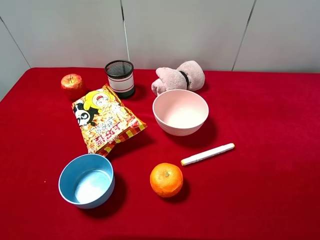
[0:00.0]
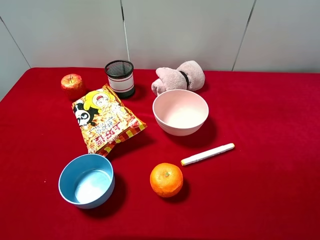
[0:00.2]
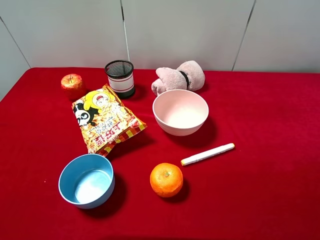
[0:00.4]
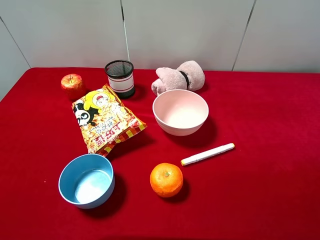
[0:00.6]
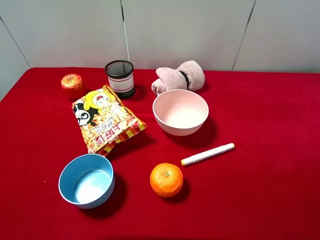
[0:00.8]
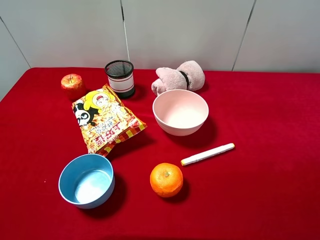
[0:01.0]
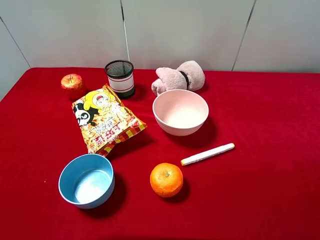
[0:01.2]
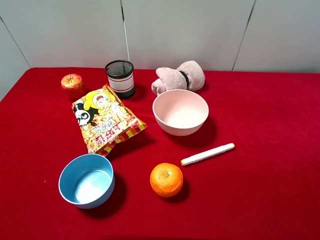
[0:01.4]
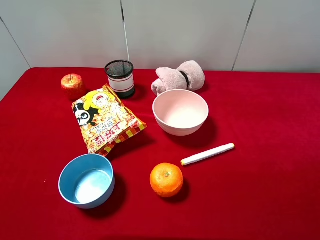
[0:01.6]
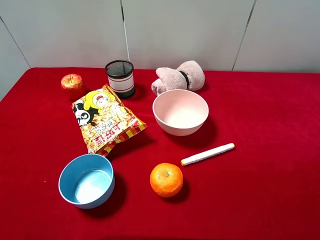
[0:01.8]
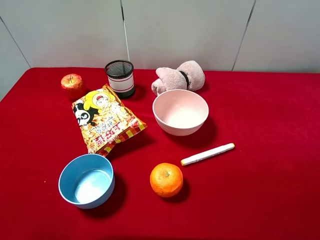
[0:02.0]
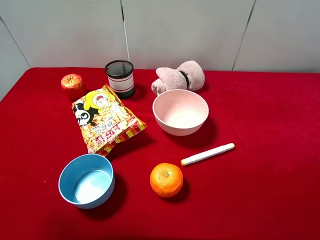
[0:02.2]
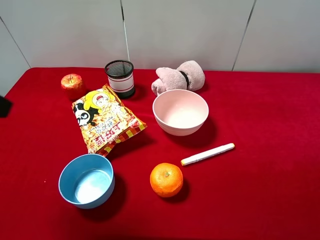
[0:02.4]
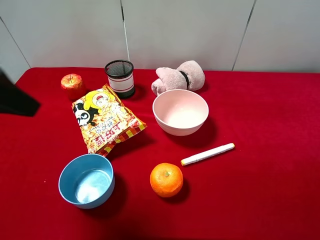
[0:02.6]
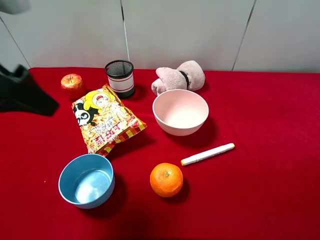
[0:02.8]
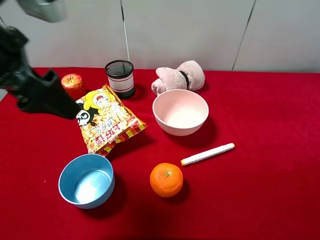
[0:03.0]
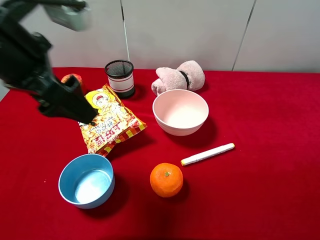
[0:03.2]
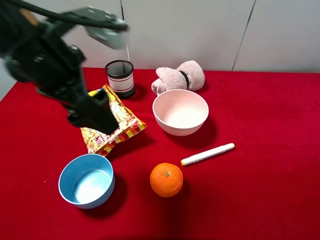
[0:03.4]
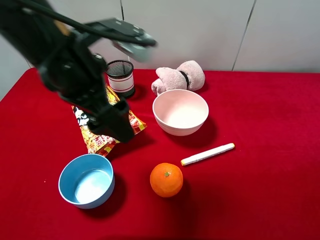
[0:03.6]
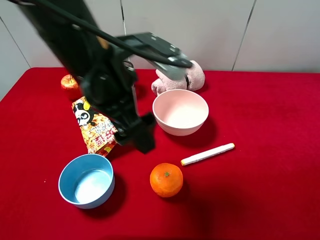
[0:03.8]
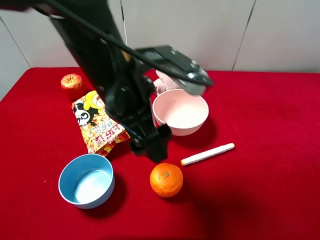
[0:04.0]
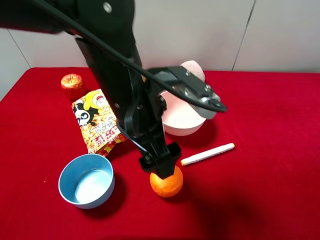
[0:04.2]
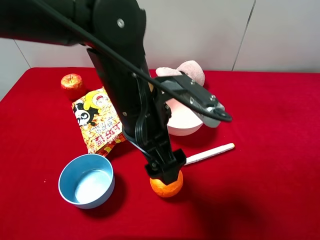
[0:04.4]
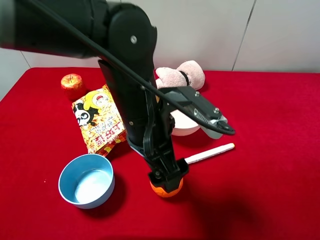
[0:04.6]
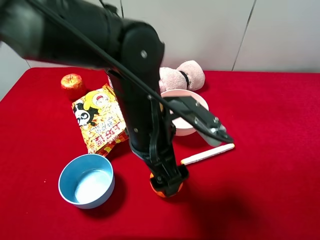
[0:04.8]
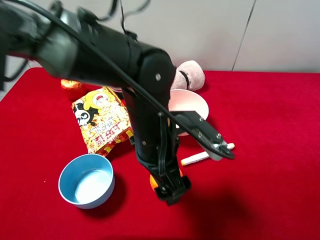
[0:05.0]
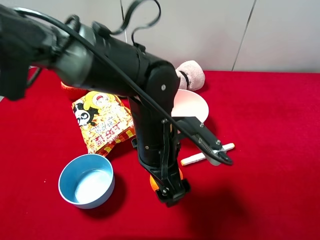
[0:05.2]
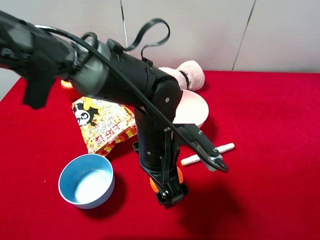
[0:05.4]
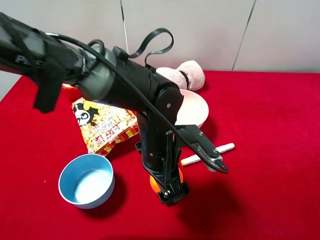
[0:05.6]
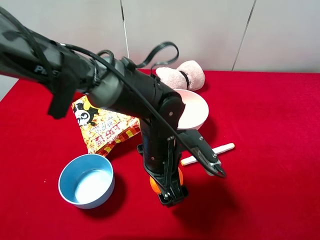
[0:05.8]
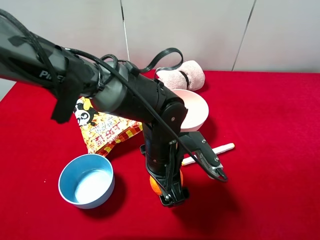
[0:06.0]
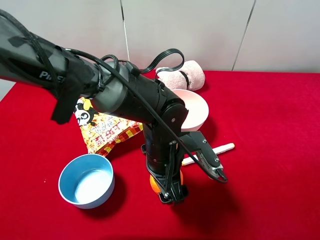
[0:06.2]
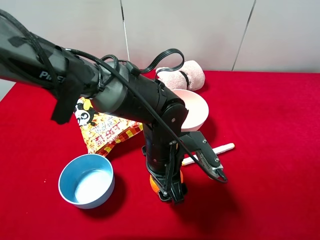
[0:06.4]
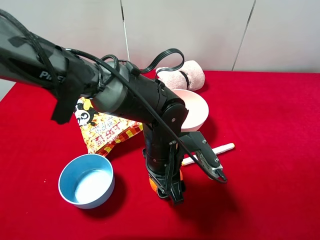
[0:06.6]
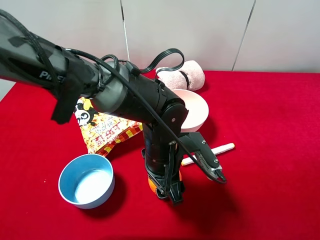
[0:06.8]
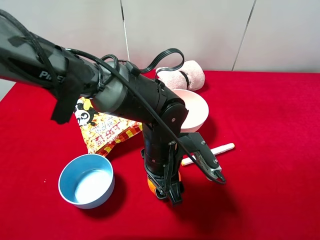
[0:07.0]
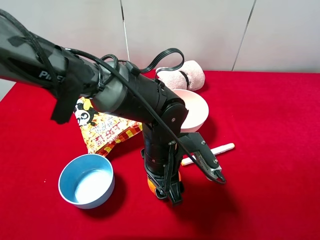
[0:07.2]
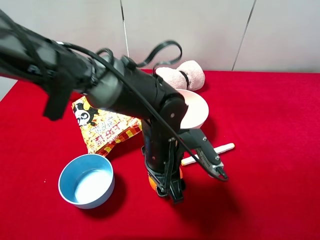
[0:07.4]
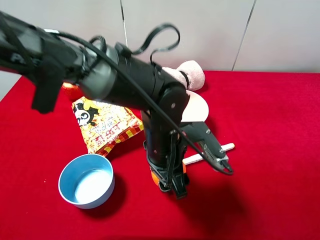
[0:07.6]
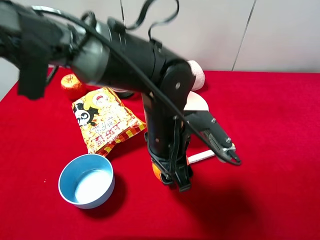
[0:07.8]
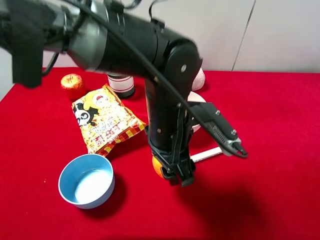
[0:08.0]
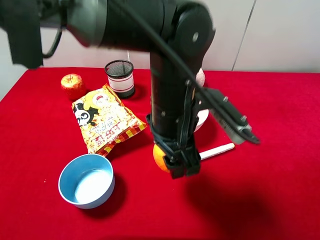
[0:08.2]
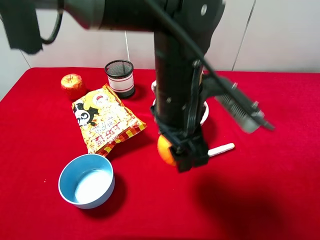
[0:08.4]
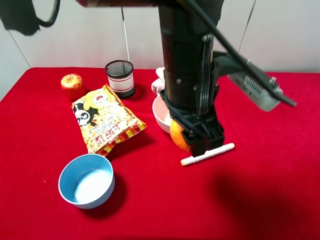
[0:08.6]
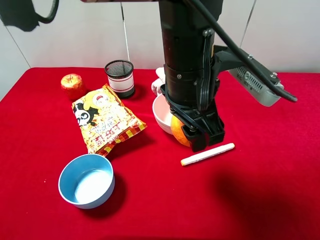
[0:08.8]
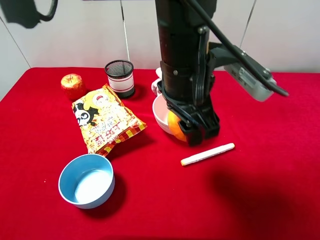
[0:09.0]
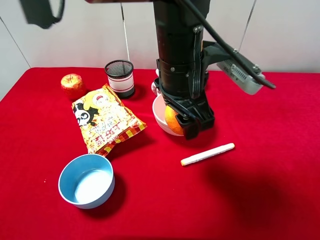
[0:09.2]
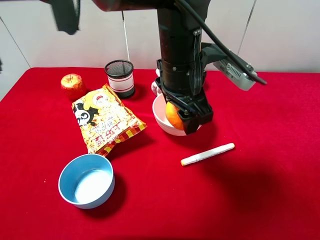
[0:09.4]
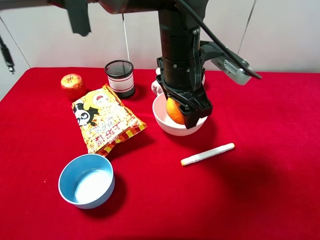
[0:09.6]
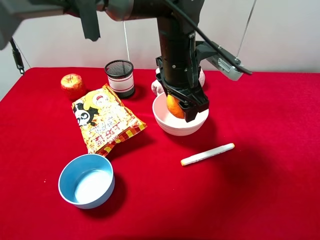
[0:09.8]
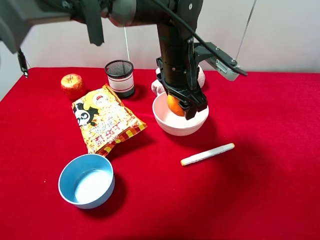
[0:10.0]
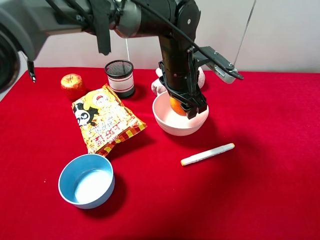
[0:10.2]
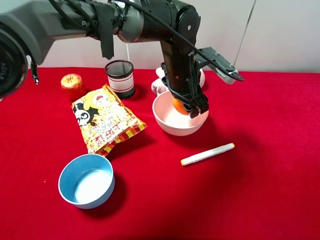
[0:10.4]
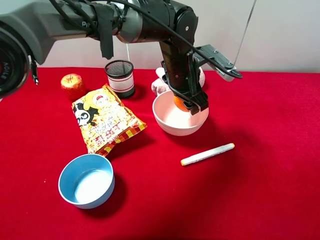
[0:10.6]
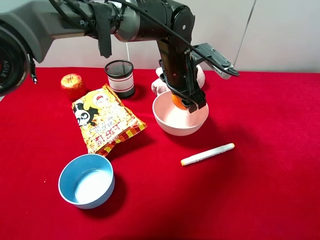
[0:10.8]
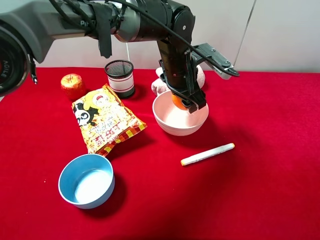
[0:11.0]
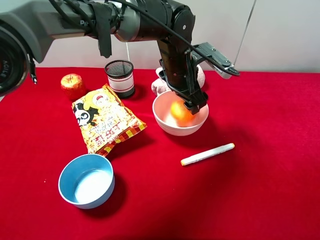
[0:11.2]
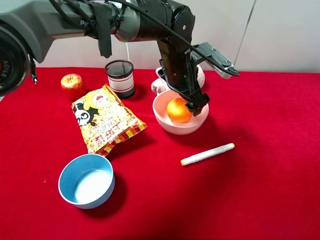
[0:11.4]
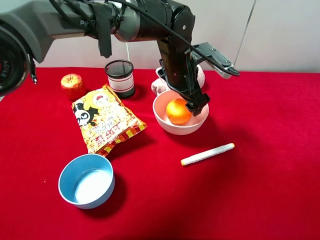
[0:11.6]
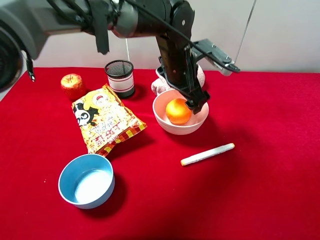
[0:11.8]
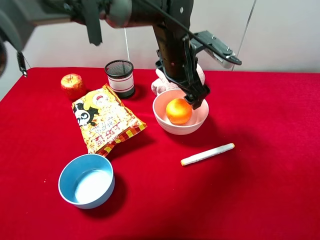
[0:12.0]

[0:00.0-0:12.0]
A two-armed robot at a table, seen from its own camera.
Task of the whole recording: pick up an item with a gripper and place it in a random container on the desktop.
0:01.6 to 0:03.0: The left gripper shifts about 20 cm forward and to the right.
0:03.0 to 0:04.4: The left gripper is displaced to the right and downward by about 20 cm.
0:04.4 to 0:06.0: The left gripper is displaced downward by approximately 10 cm.
0:06.0 to 0:07.6: The left gripper closes its fingers.
0:07.6 to 0:09.0: The left gripper travels upward by roughly 15 cm.
0:09.0 to 0:10.4: The left gripper goes roughly 15 cm forward and downward.
0:10.4 to 0:12.0: The left gripper opens up.

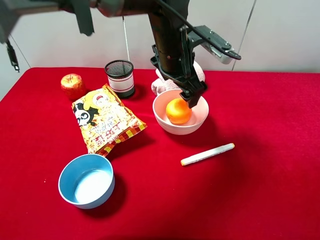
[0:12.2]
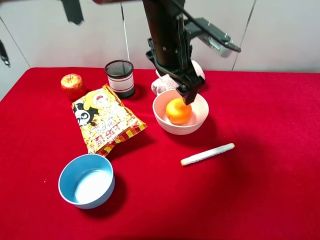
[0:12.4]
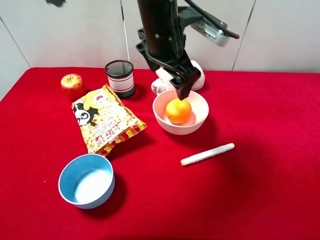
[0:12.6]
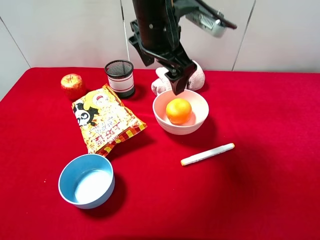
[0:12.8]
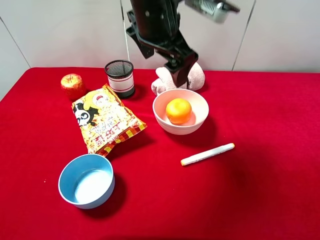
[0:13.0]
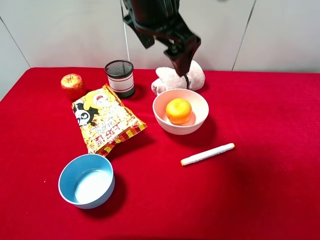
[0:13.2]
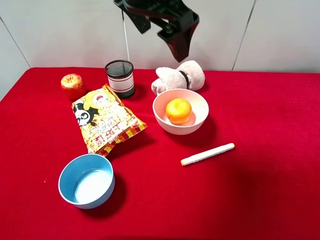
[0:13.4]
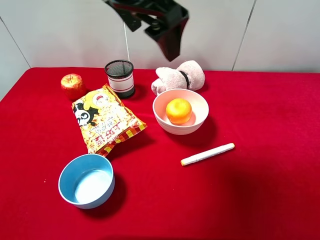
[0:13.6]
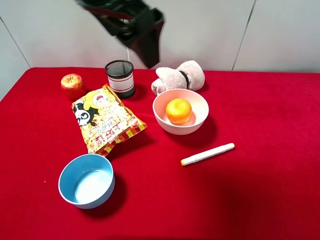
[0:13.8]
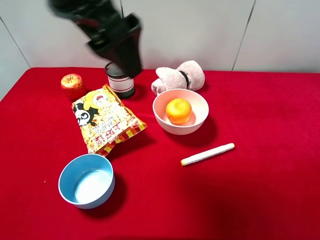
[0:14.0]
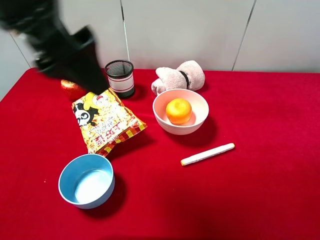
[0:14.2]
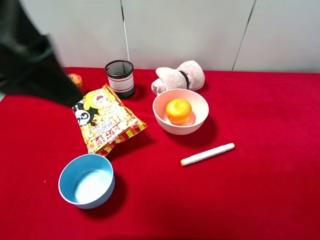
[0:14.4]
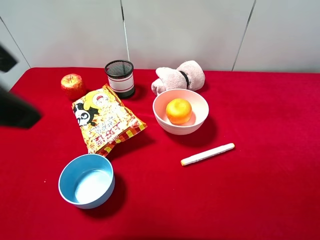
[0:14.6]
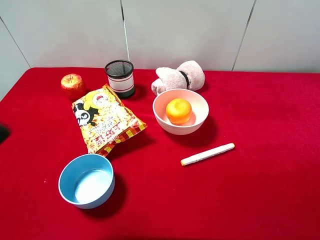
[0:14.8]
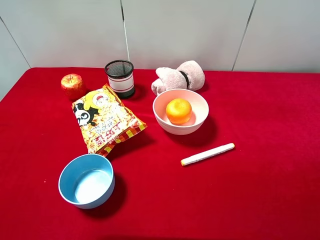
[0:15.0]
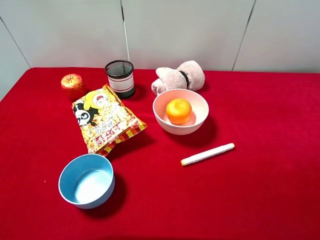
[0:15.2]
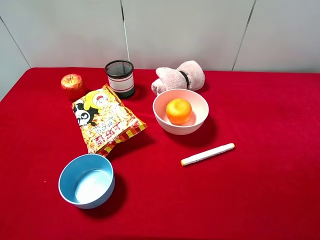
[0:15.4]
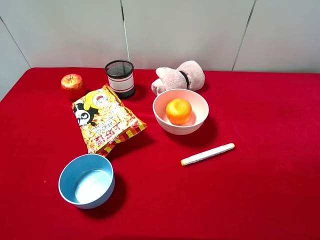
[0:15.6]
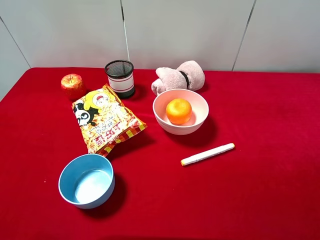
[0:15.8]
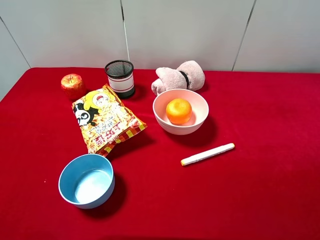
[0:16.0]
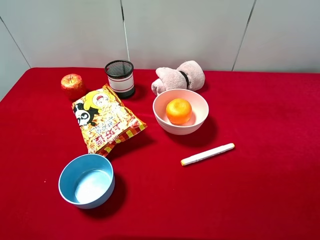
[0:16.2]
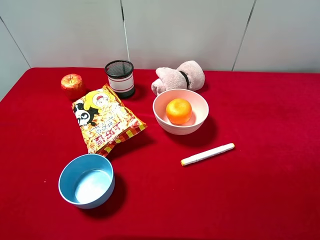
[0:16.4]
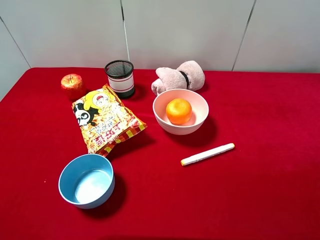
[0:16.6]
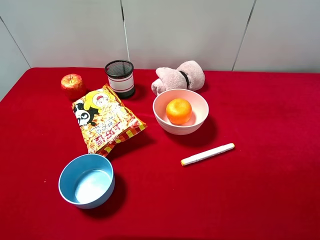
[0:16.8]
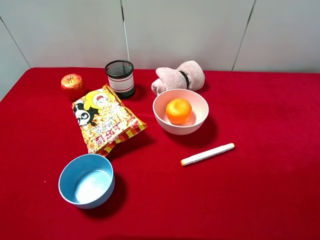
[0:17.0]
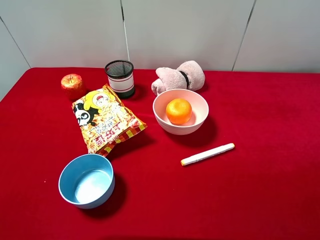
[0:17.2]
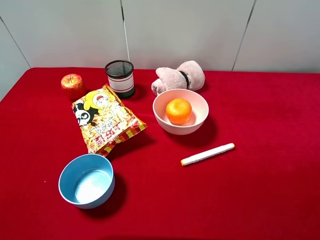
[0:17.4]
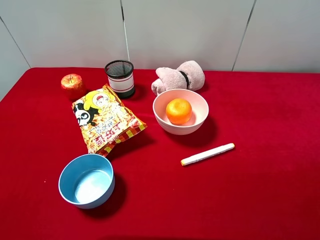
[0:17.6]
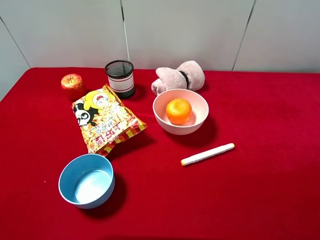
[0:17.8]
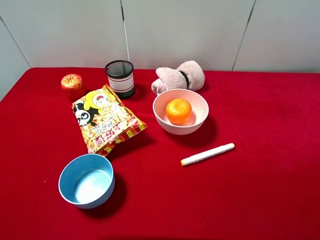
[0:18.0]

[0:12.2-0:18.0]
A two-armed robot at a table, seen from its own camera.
Task of the whole recording: pick up an item with a gripper and place it in a random container on the desktop.
0:12.2 to 0:13.6: The left gripper moves upward, to the left and backward, some 20 cm.
0:13.6 to 0:15.0: The left gripper is displaced backward and to the left by about 30 cm.
0:16.6 to 0:18.0: Both grippers stay put.
